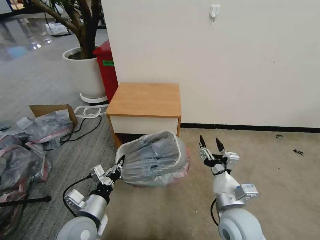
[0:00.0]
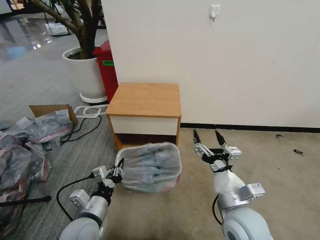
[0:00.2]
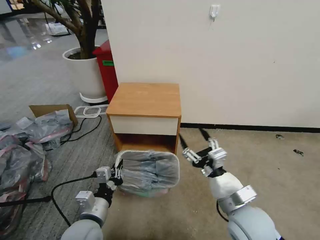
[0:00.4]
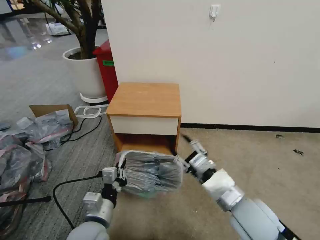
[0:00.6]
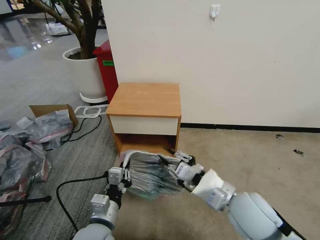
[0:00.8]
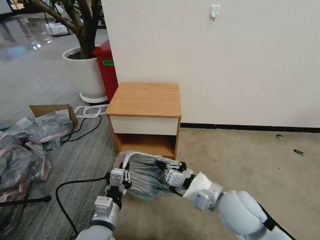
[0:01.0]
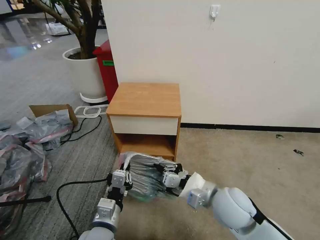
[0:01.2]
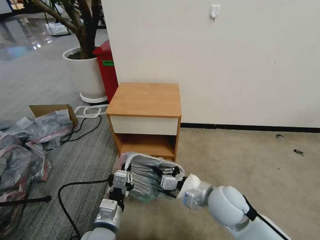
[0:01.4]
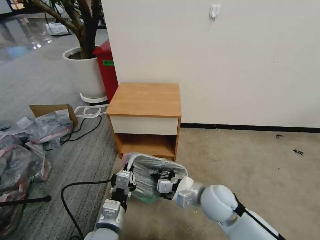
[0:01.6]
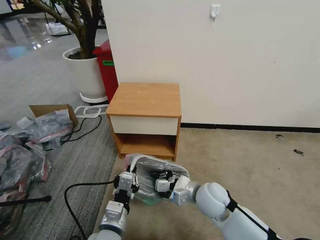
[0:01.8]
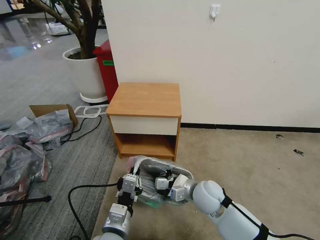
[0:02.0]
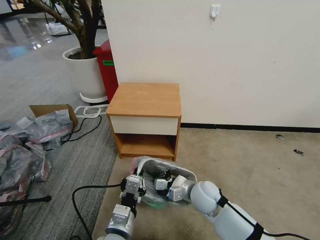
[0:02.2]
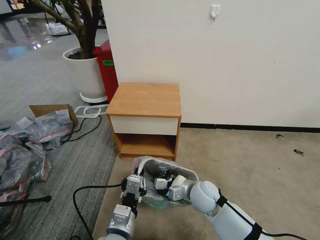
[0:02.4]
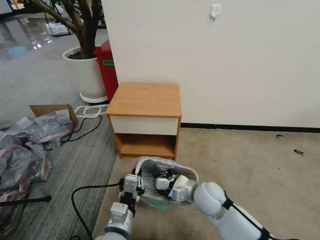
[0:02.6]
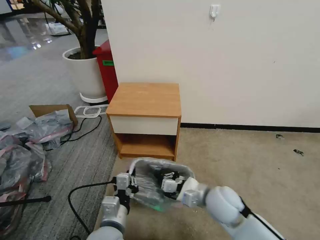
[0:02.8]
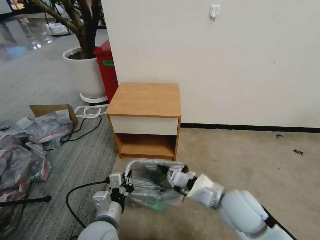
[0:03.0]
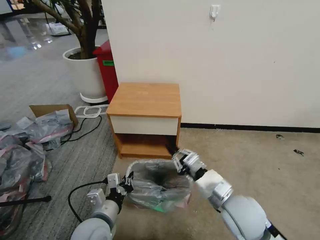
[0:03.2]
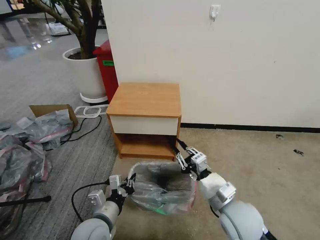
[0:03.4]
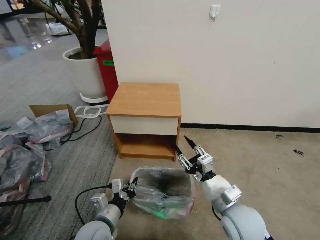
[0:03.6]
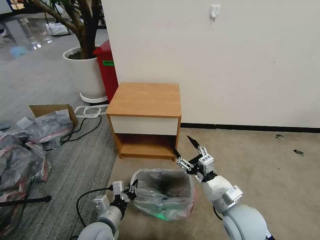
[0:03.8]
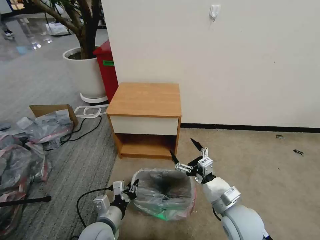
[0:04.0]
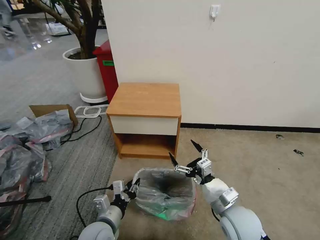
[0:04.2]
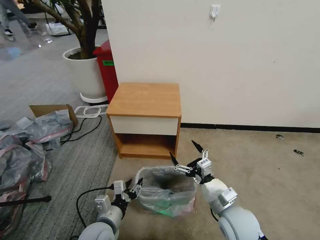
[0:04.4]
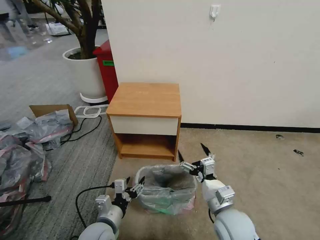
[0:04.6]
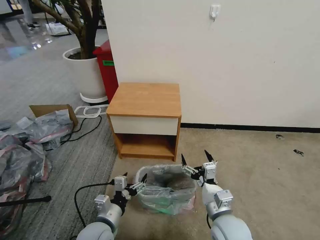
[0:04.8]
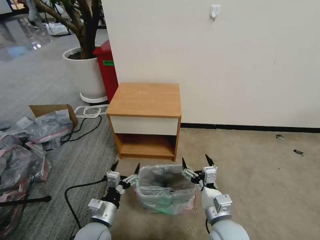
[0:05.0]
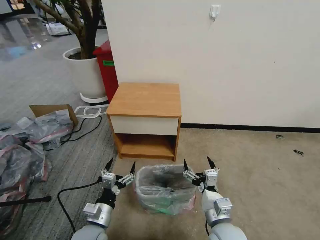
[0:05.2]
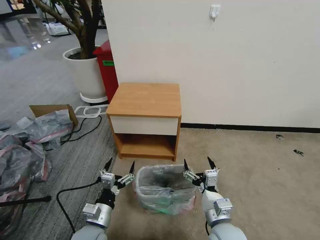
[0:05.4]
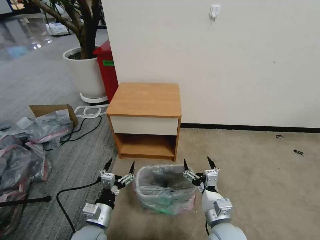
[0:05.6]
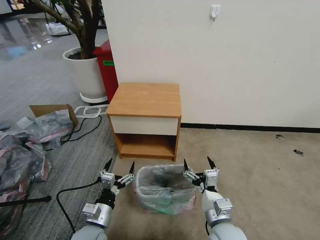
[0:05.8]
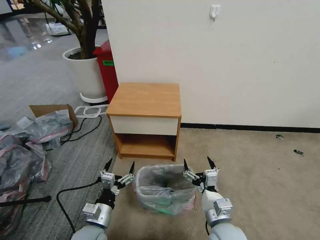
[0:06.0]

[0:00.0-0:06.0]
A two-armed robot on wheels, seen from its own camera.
Task of the whole recording: Pick up the garbage bag from the table and place it over the trash can.
0:00.0 to 0:01.6: The right gripper heads forward, covering some 5 cm, reaches roughly 5 cm upward, then returns, and closes, while the left gripper shifts approximately 10 cm to the right.
0:01.6 to 0:03.0: The right gripper shifts by approximately 5 cm.
0:03.0 to 0:04.4: The grippers both shift downward by roughly 5 cm. The right gripper opens up, while the left gripper opens up.
0:04.4 to 0:06.0: The right gripper shifts by some 5 cm; the left gripper opens.

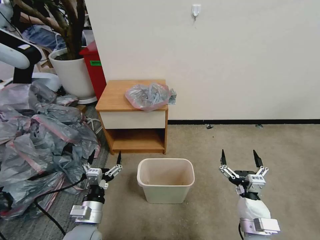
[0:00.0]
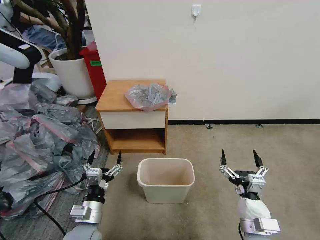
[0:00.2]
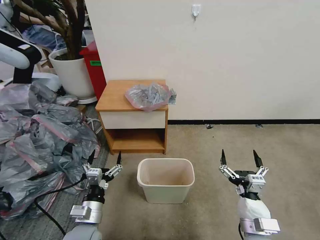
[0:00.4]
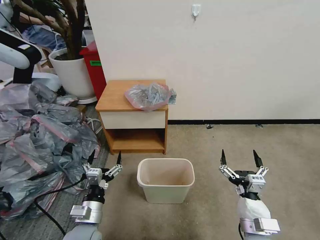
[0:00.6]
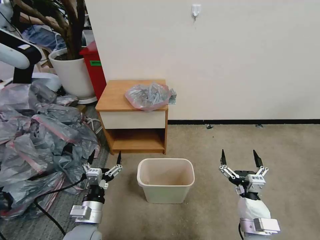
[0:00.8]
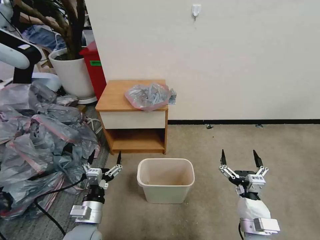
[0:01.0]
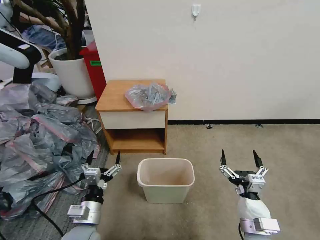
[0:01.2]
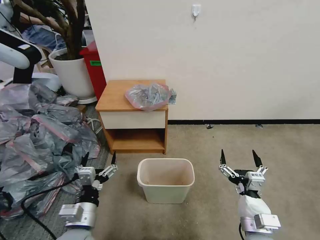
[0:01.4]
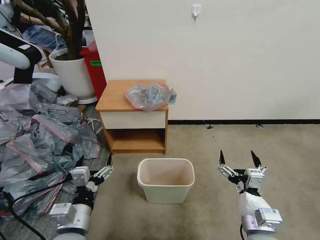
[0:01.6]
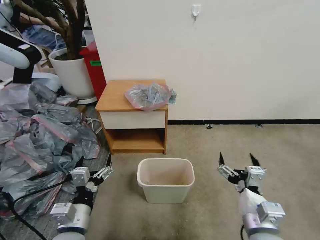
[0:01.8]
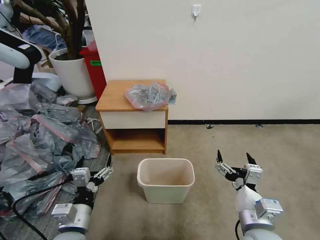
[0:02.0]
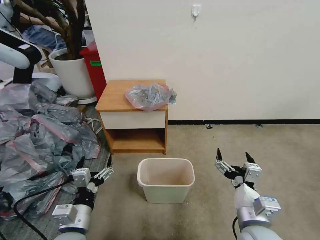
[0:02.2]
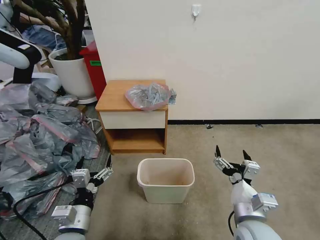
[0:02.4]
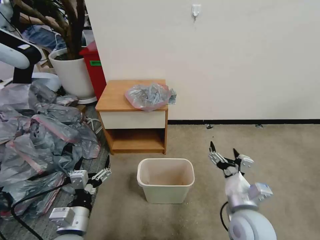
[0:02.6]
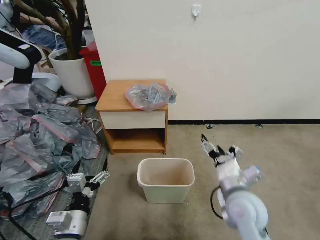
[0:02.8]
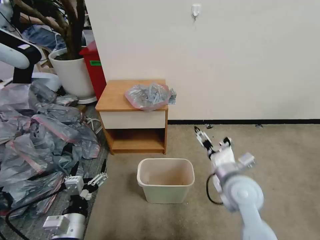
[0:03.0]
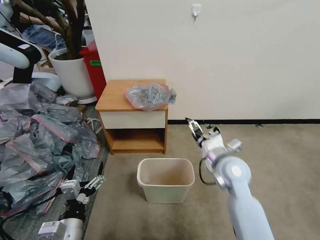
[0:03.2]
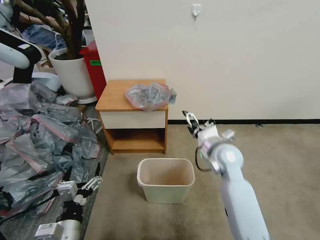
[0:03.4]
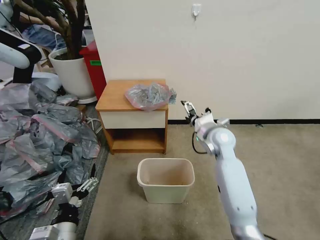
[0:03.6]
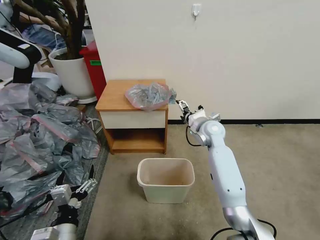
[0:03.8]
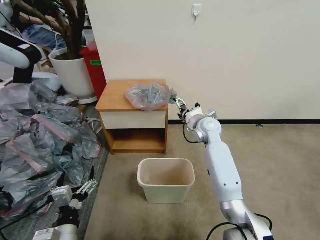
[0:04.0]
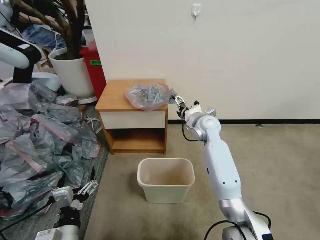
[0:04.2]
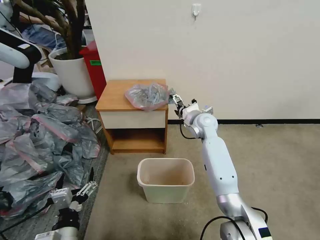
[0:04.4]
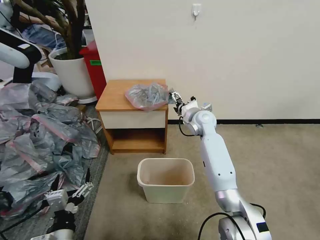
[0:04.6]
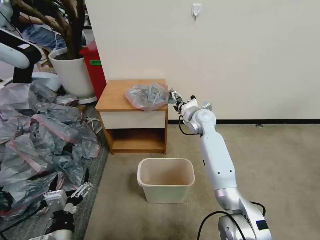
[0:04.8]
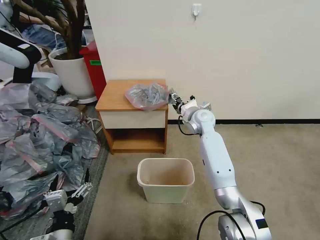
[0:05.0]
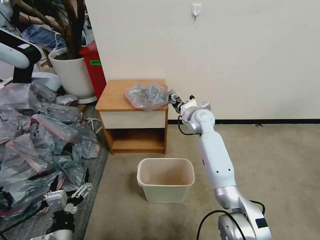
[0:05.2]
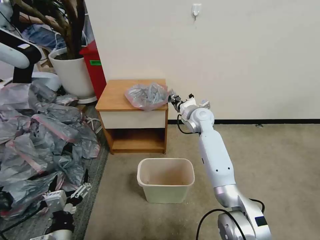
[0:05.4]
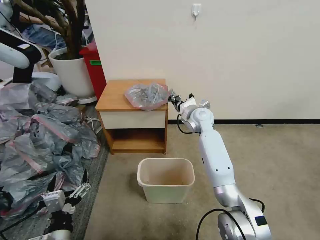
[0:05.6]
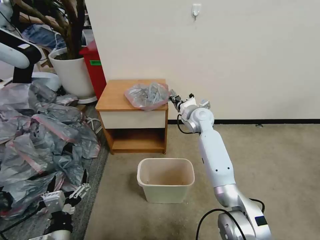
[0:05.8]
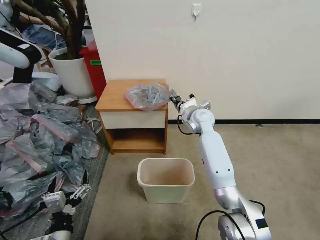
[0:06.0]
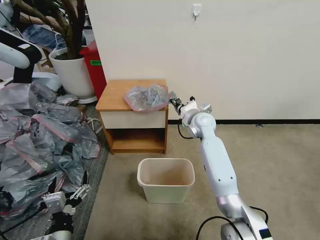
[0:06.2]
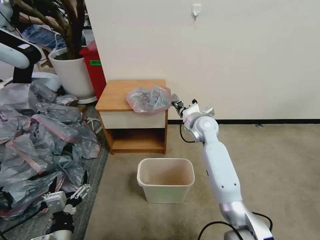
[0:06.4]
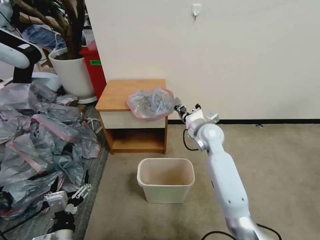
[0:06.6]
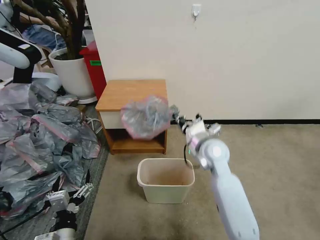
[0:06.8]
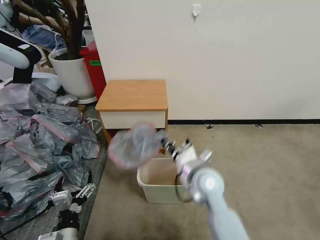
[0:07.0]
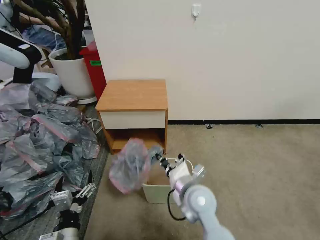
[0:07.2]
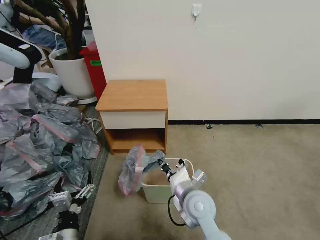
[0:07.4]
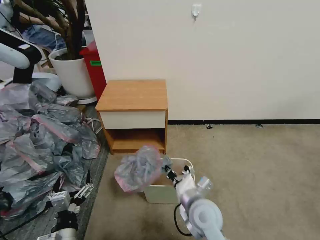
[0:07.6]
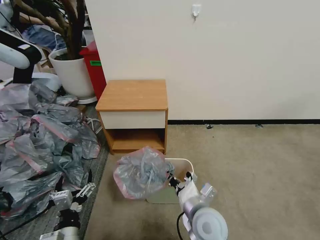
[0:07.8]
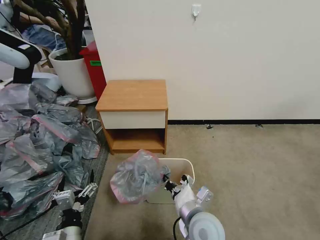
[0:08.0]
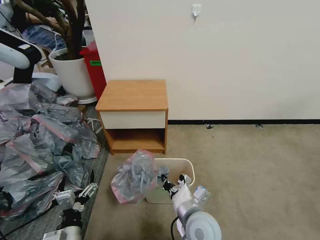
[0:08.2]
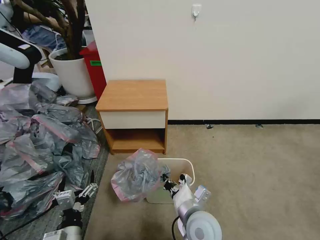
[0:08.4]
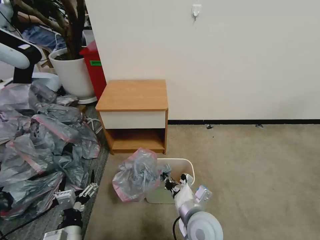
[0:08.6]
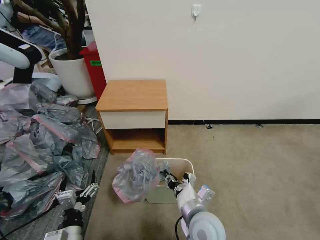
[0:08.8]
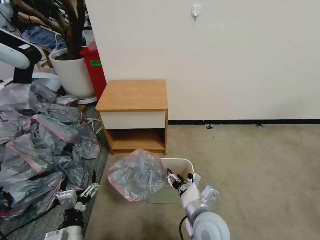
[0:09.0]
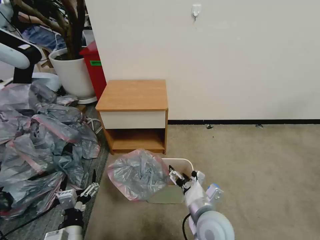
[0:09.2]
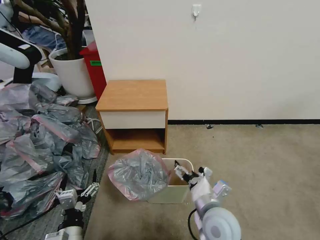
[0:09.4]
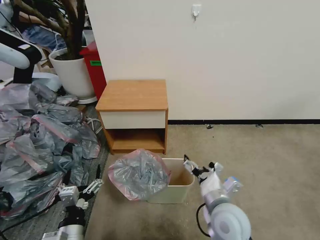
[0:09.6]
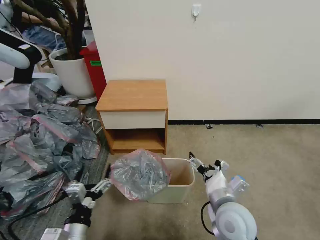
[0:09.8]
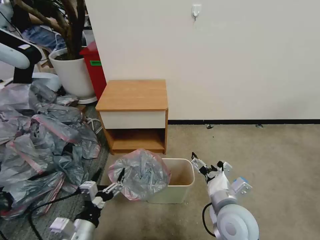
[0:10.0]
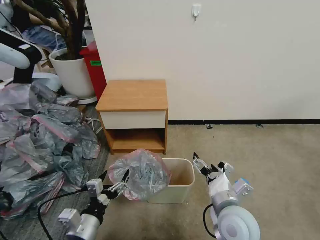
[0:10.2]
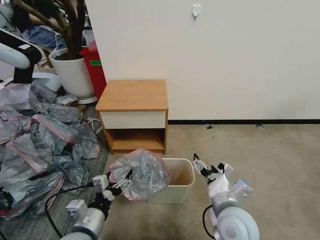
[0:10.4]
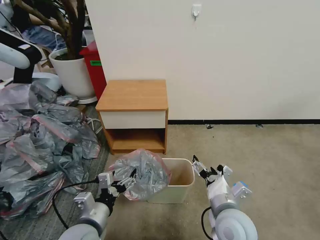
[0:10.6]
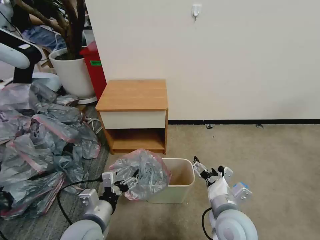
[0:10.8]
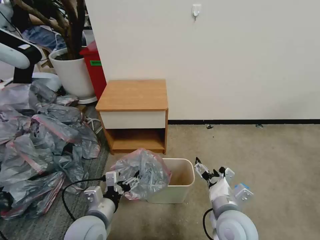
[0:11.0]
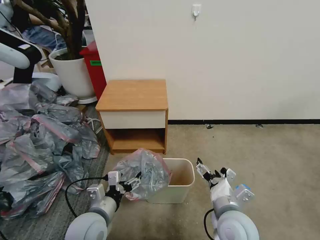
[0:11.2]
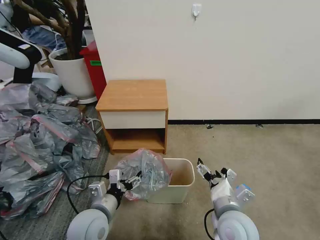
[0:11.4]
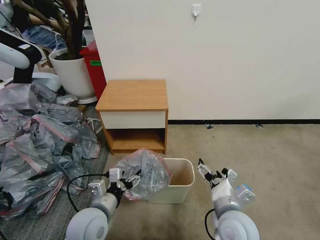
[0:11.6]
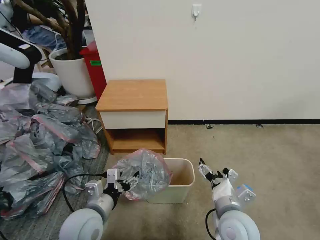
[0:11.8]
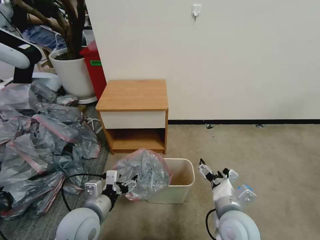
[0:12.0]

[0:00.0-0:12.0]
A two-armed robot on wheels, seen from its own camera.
Task of the whole recording: Pick up the garbage bag from the table and place it over the trash can.
0:01.6 to 0:03.0: The left gripper ends up some 5 cm from where it was. Meanwhile the right gripper heads forward, covering approximately 15 cm.
0:03.0 to 0:04.4: The right gripper moves forward, some 25 cm.
0:04.4 to 0:06.0: The right gripper closes its fingers.
0:06.0 to 0:07.6: The right gripper goes about 30 cm backward.
0:07.6 to 0:09.0: The right gripper opens its fingers.
0:09.0 to 0:10.4: The right gripper goes roughly 5 cm to the right, and opens. The left gripper shifts approximately 5 cm upward.
0:10.4 to 0:12.0: The left gripper shifts by some 5 cm.

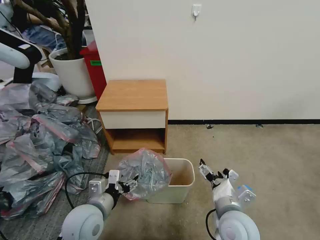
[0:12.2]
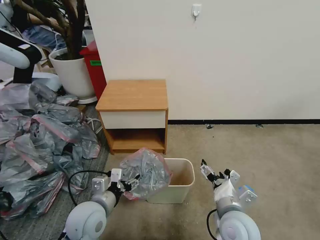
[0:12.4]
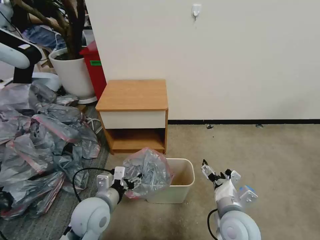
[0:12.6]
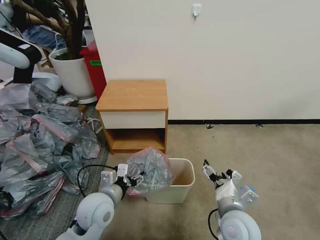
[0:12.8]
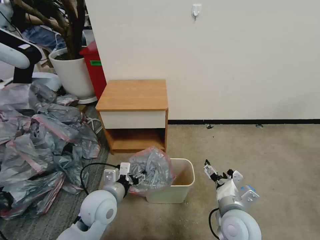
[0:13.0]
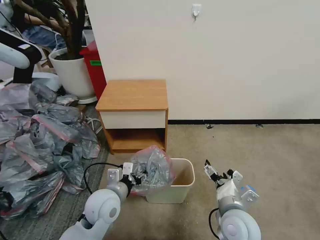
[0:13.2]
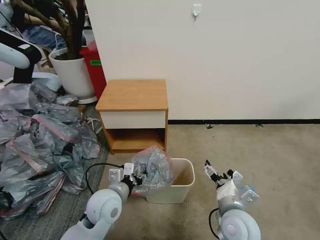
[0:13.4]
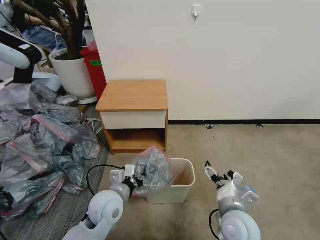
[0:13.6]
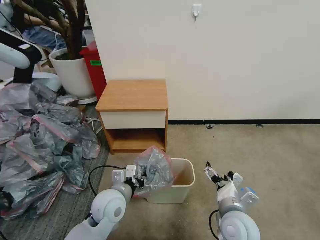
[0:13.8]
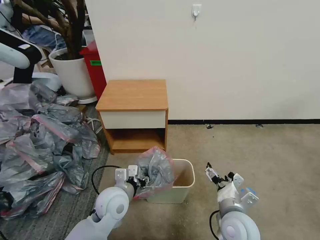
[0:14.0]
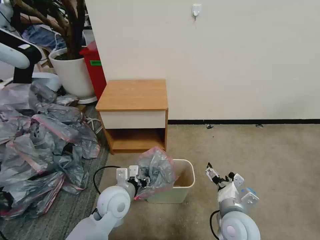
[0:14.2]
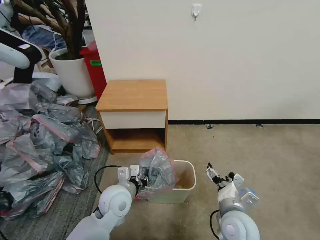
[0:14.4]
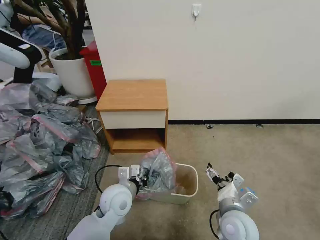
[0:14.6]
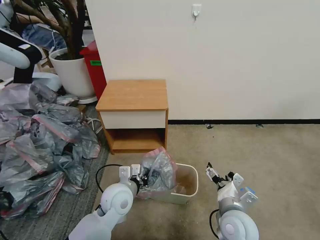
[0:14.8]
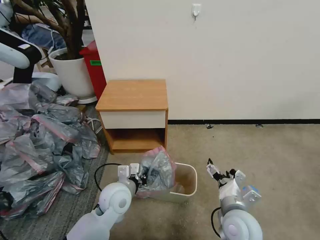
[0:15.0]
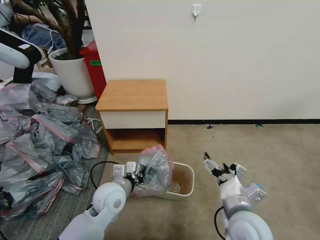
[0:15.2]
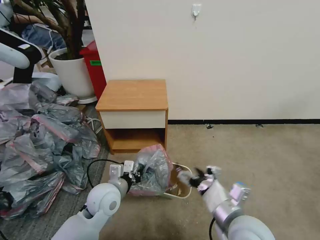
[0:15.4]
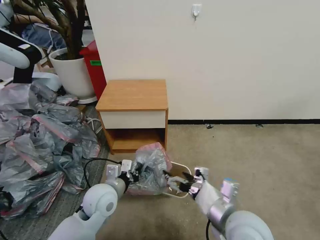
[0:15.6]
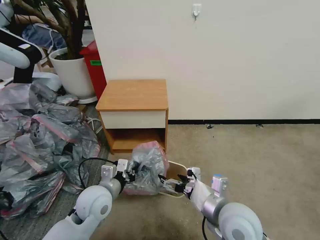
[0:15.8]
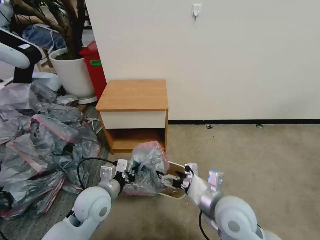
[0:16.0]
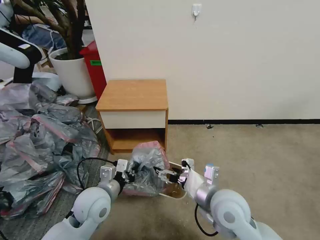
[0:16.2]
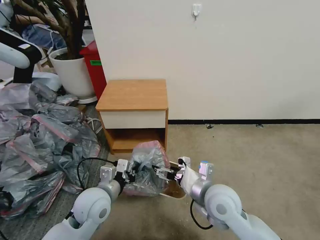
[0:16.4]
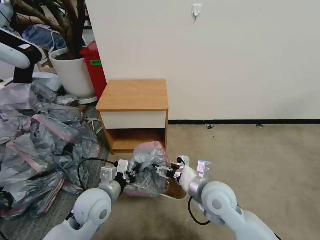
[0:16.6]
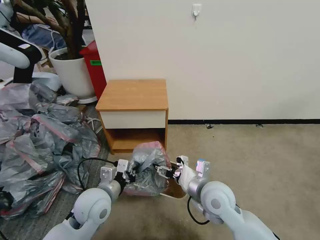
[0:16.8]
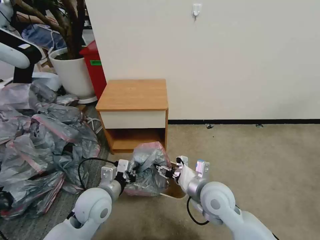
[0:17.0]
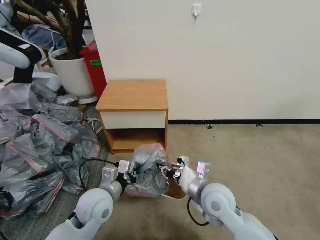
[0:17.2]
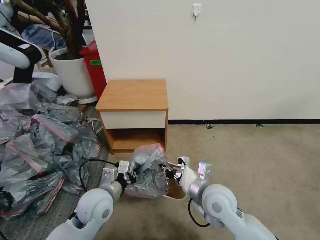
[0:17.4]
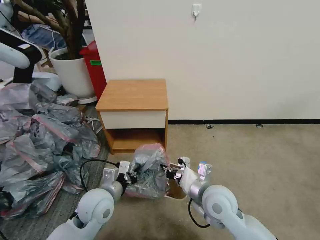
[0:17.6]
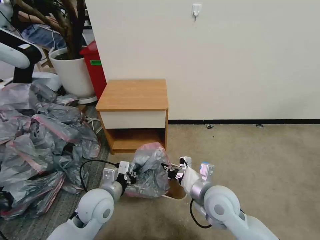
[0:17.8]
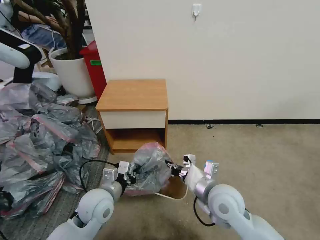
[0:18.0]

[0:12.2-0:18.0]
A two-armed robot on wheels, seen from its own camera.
Task of the whole recording: Pick up the garbage bag from the table and place it over the trash can.
0:12.2 to 0:13.6: The left gripper ends up roughly 5 cm from where it was, and closes up.
0:13.6 to 0:15.0: The grippers make only small movements.
0:15.0 to 0:16.6: The right gripper moves forward and to the left, about 10 cm; the left gripper is displaced to the left by about 5 cm.
0:16.6 to 0:18.0: The right gripper closes up.
